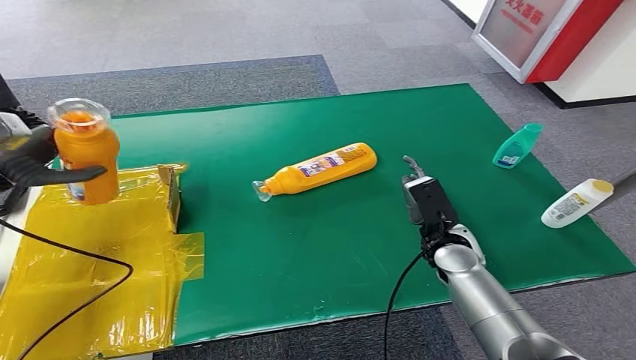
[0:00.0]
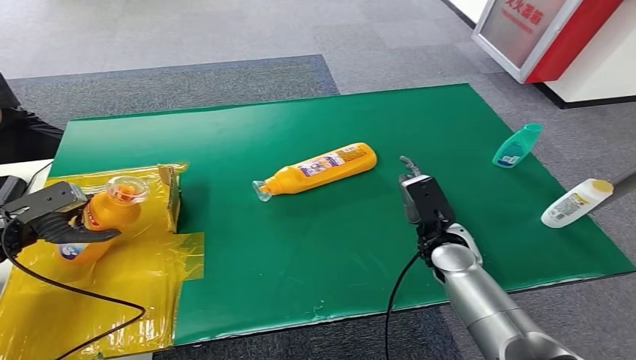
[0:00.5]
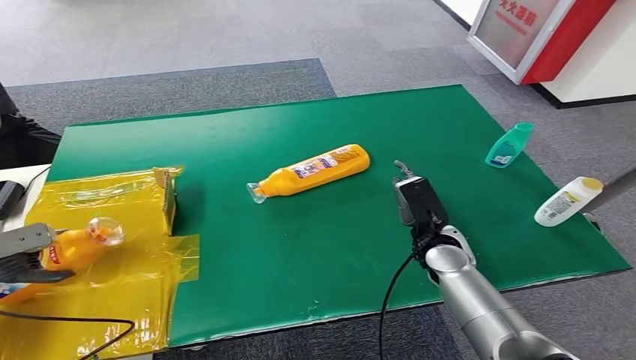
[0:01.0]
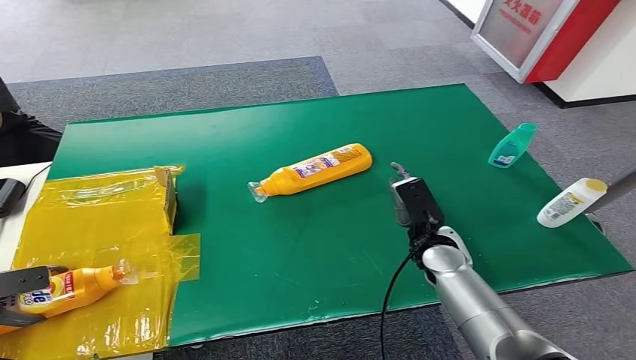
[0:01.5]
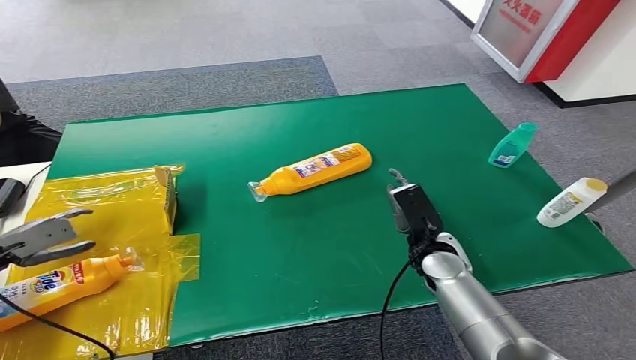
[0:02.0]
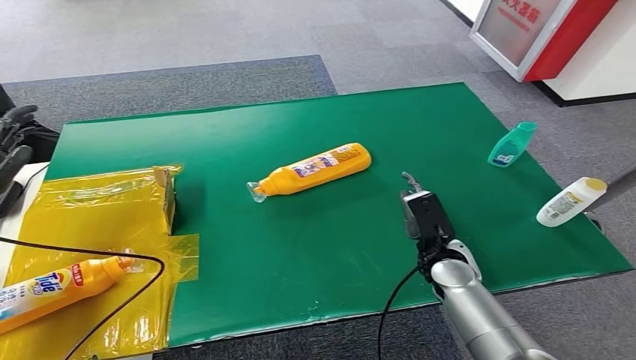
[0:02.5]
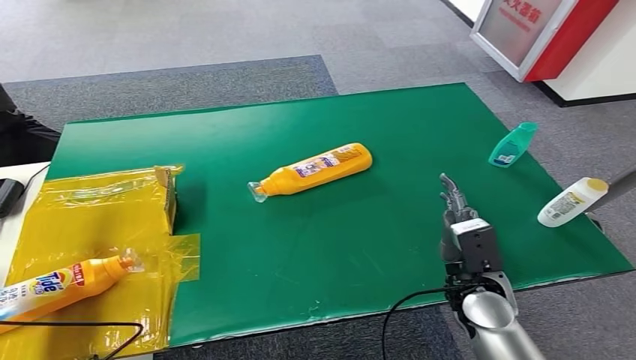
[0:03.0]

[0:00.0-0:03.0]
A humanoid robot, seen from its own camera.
Step, 0:00.0 to 0:03.0: Turn the bottle to the front side.
0:00.0 to 0:01.5: The left hand shifts about 25 cm downward, backward and to the left.
0:01.5 to 0:03.0: The right hand moves backward, roughly 10 cm. Meanwhile the left hand travels to the right by some 10 cm, and travels forward and back again, approximately 10 cm each way.
